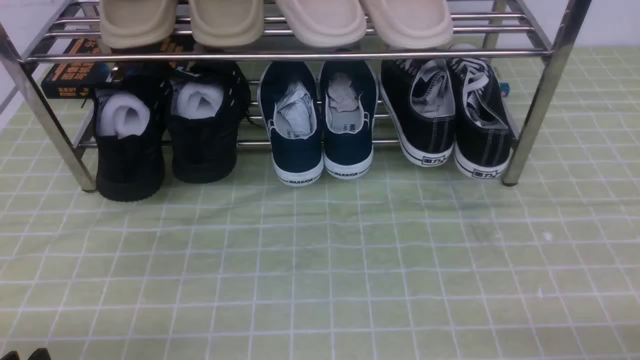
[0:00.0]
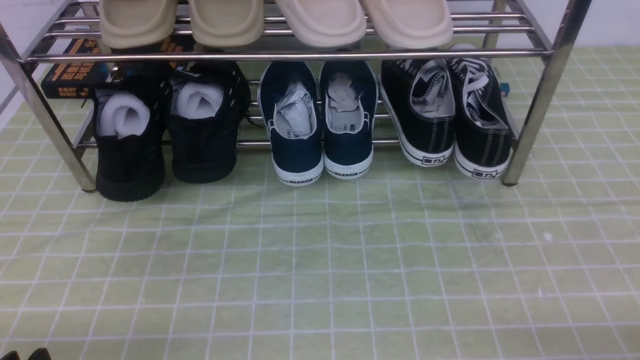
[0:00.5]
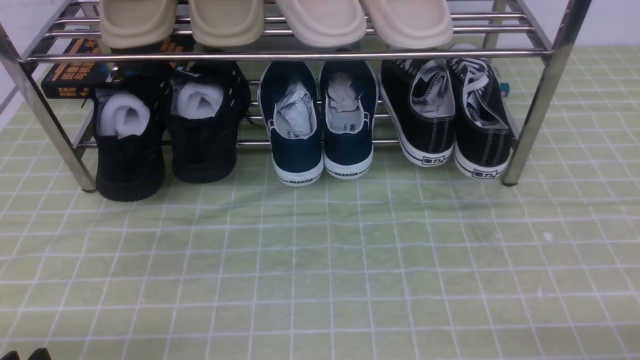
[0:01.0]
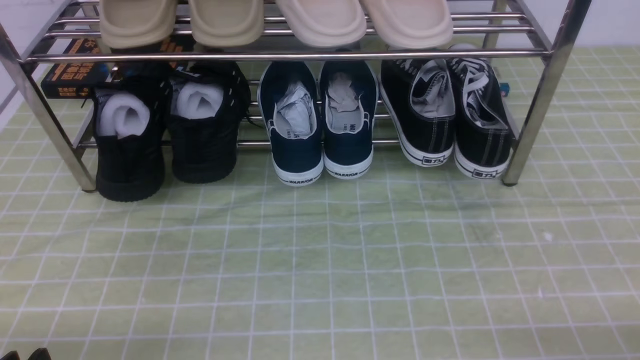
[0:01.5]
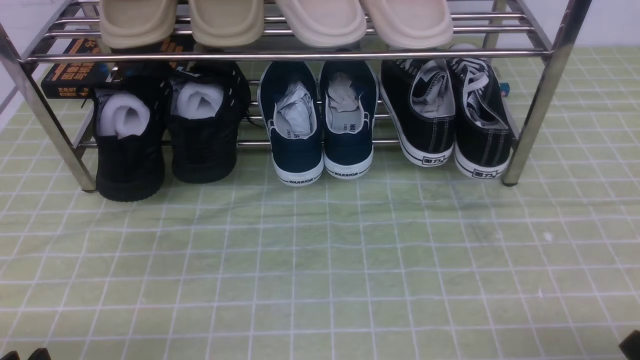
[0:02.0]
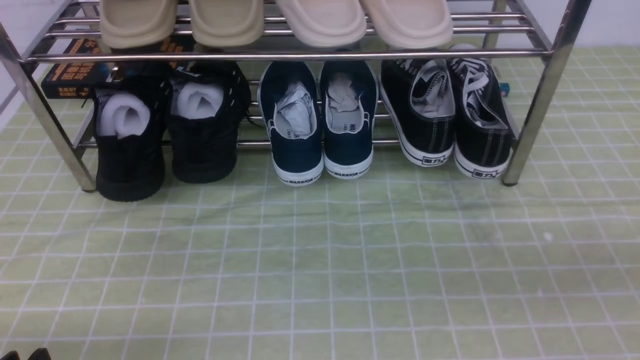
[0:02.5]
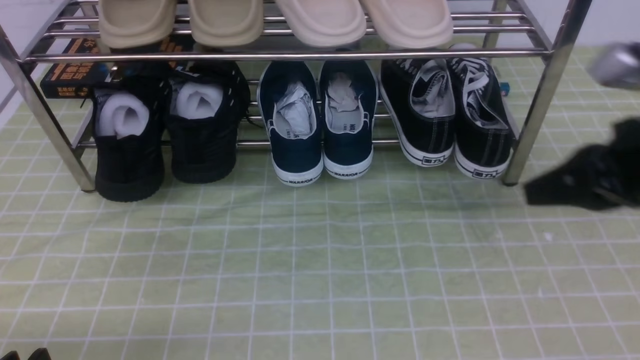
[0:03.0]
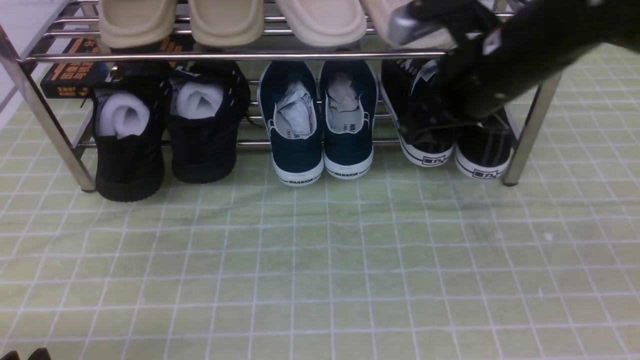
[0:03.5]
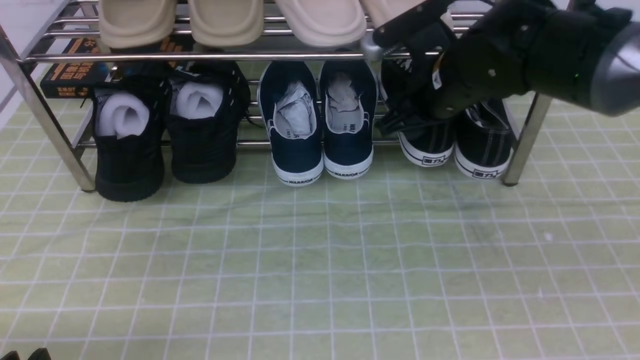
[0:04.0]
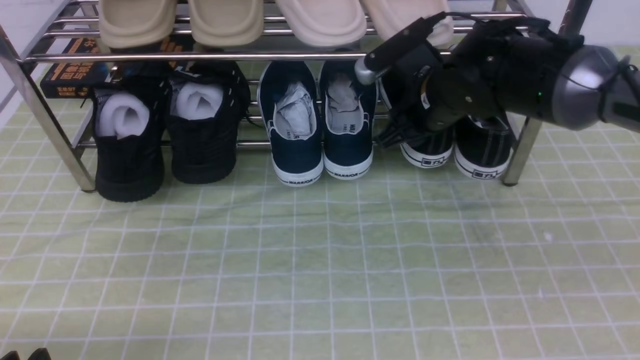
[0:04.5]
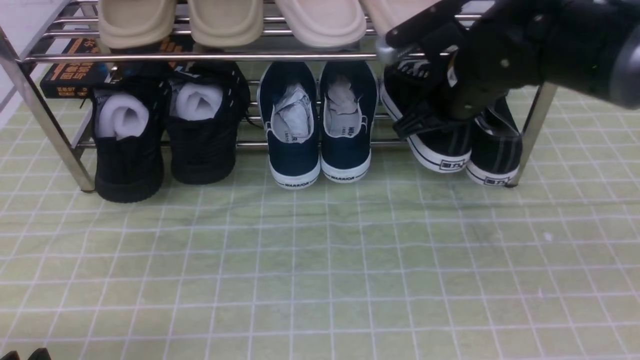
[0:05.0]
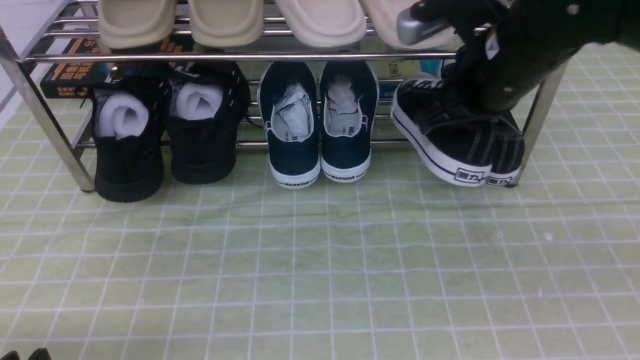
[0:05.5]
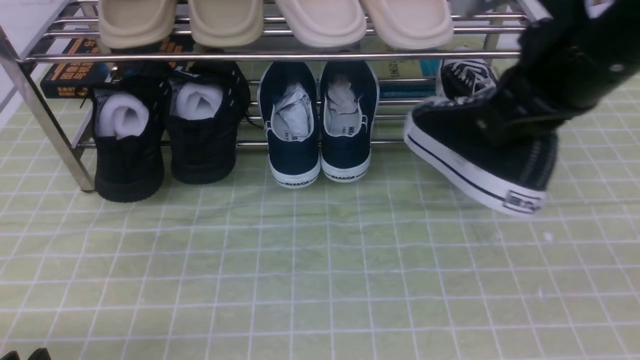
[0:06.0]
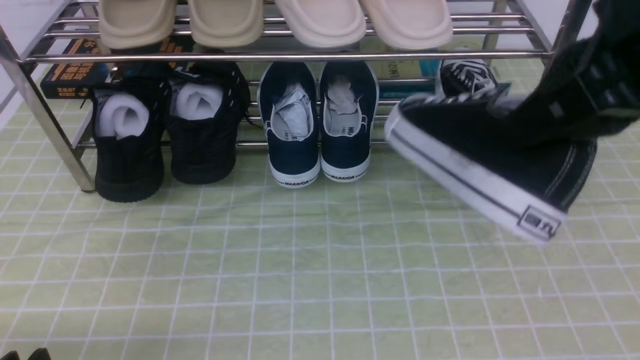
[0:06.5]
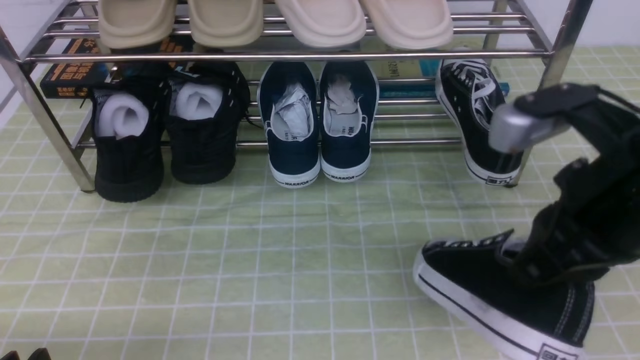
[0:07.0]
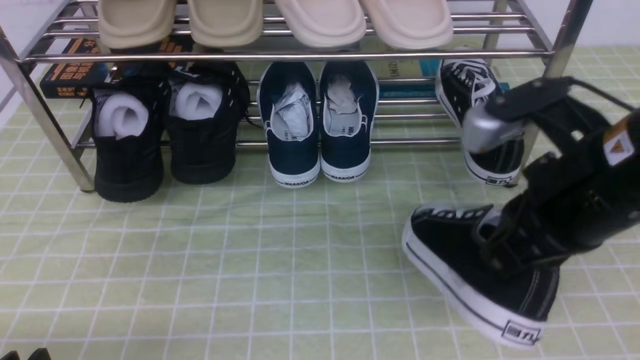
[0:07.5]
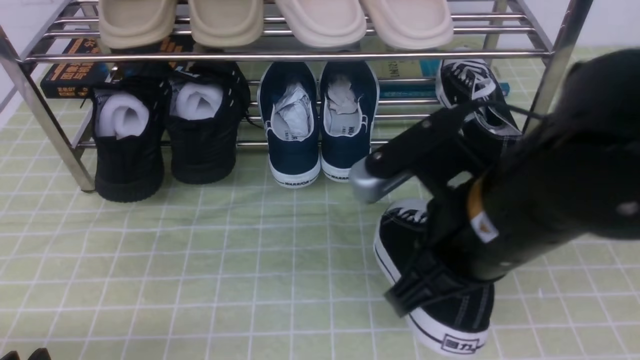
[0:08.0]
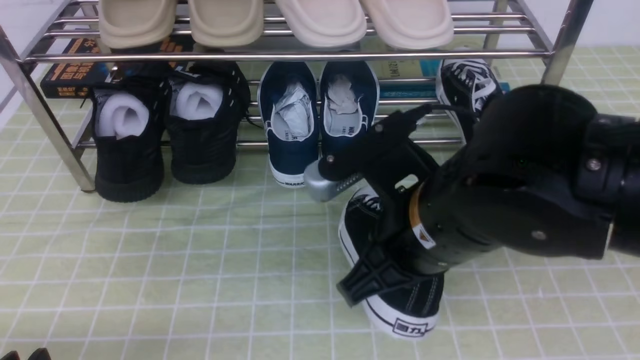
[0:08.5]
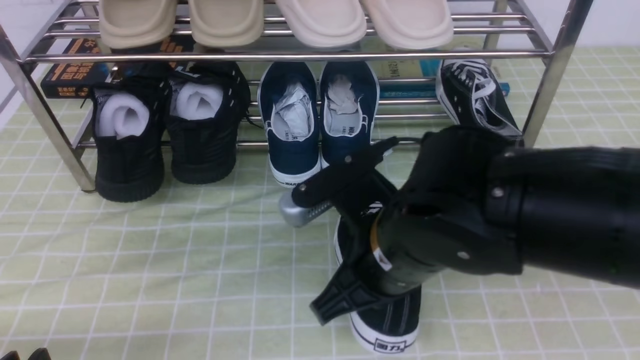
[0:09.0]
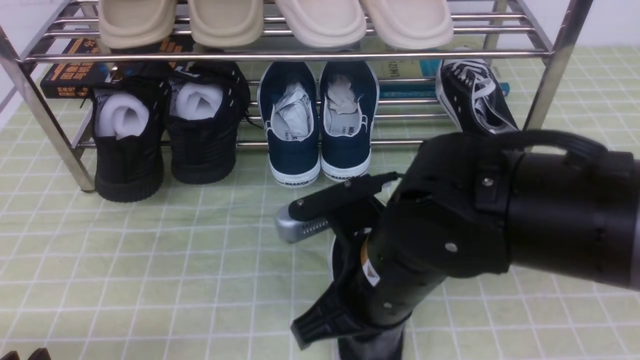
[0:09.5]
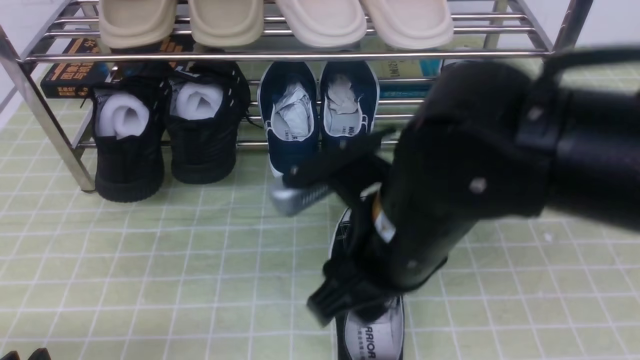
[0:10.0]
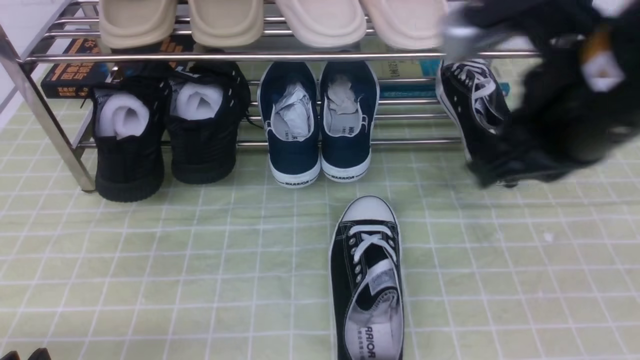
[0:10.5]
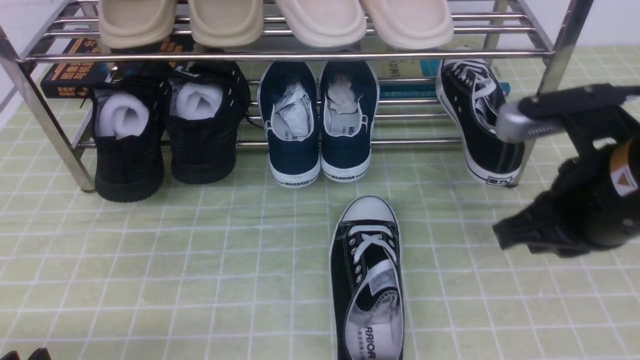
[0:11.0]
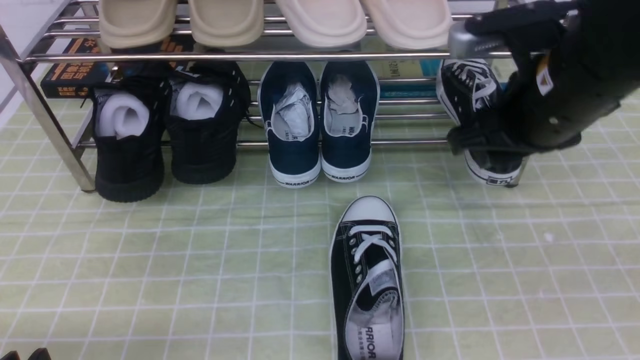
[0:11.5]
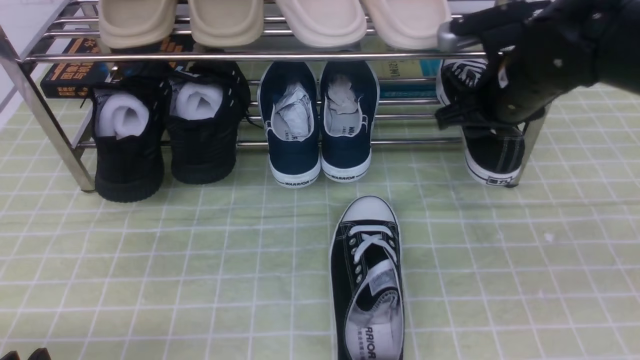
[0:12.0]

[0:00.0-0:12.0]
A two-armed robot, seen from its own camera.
Step, 0:00.0 to 0:04.5: use the right arm to clamp a shoe on the right side of the shoe rack.
Step, 0:05.0 to 0:09.5: use the right arm to take out the clamped shoe from the shoe rack and put it down.
0:02.0 to 0:04.0: The right gripper travels forward and to the left by about 40 cm, and opens up.
0:04.0 to 0:06.0: The right gripper heads backward and upward, covering about 20 cm, and closes its fingers.
0:06.0 to 0:08.0: The right gripper moves downward, to the left and backward, roughly 15 cm.
0:08.0 to 0:10.0: The right gripper opens.
0:10.0 to 0:12.0: The right gripper goes about 20 cm forward and to the right, and closes and opens again.

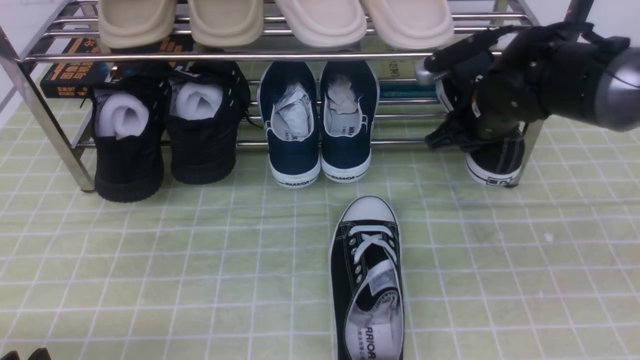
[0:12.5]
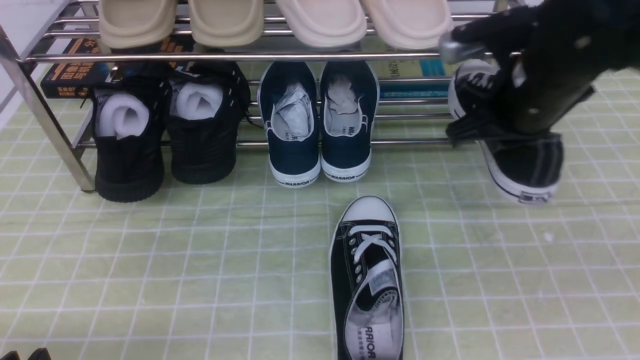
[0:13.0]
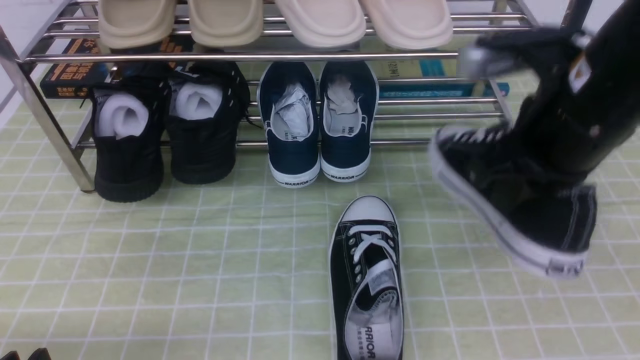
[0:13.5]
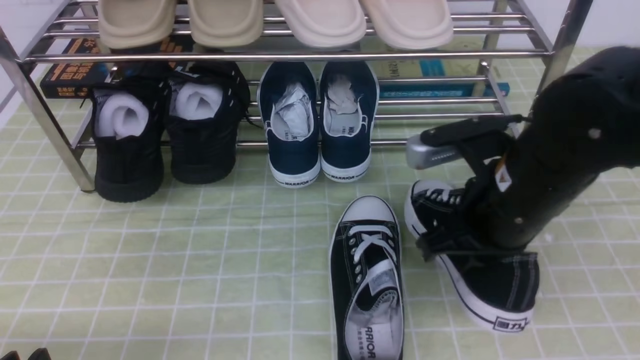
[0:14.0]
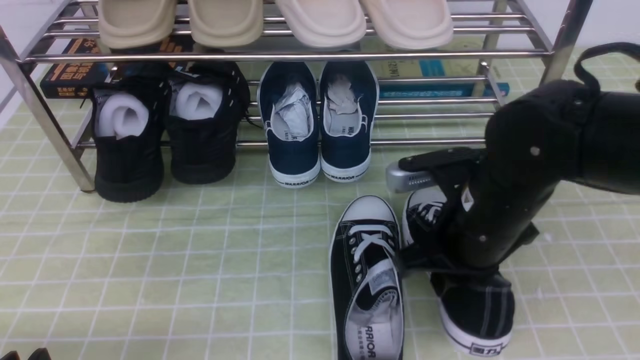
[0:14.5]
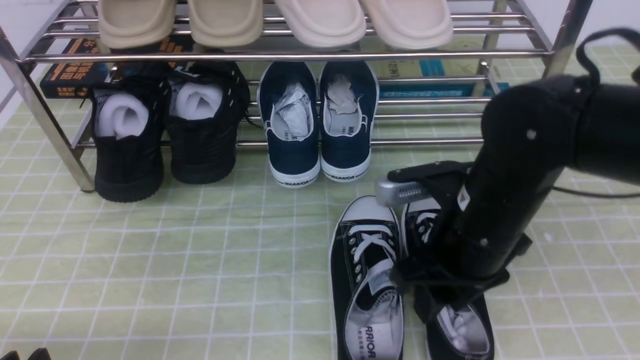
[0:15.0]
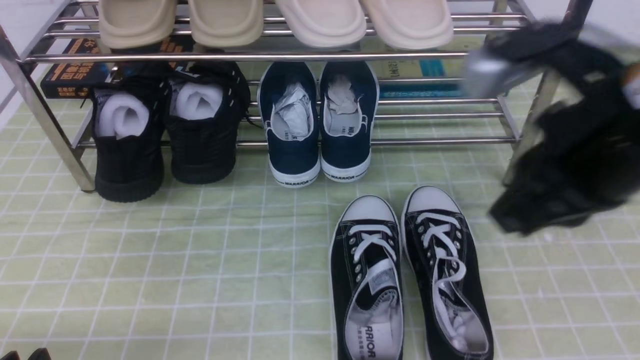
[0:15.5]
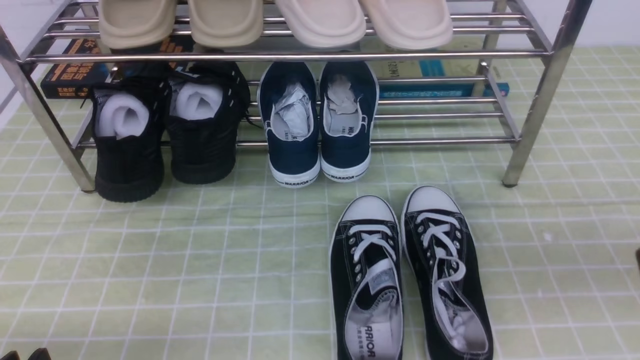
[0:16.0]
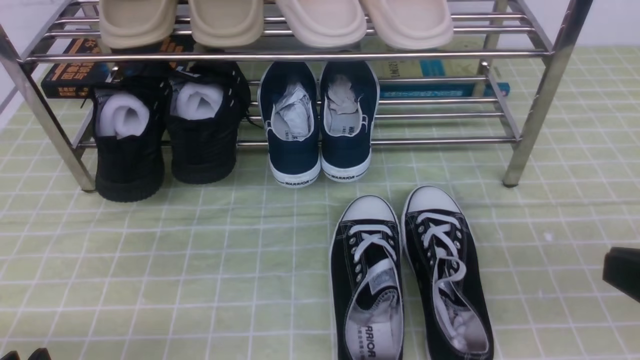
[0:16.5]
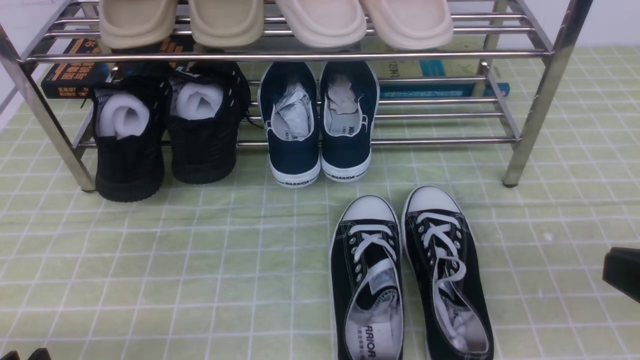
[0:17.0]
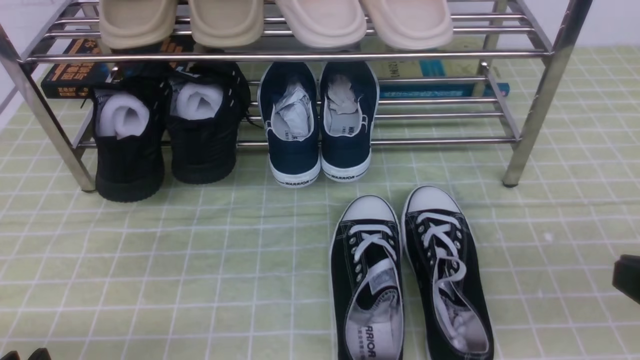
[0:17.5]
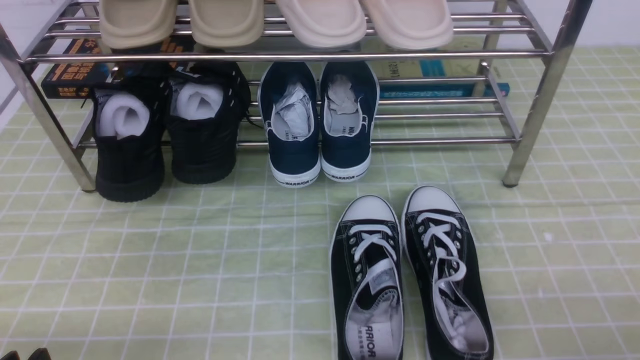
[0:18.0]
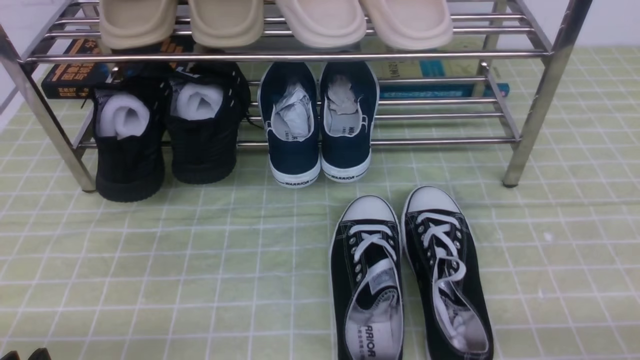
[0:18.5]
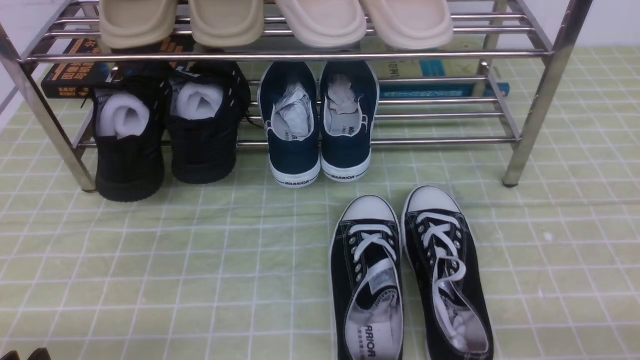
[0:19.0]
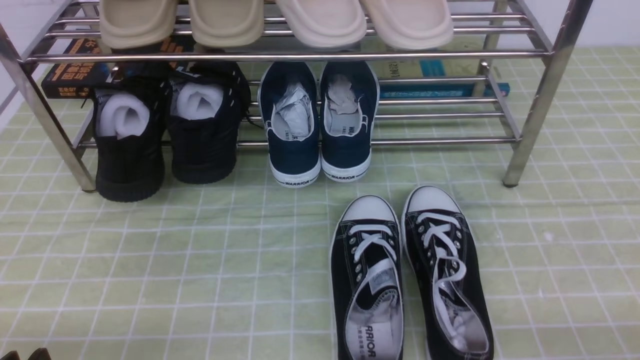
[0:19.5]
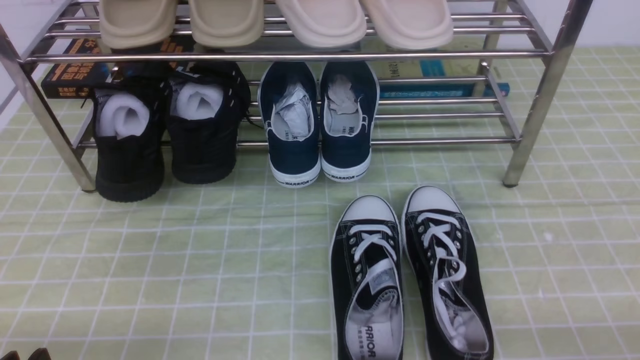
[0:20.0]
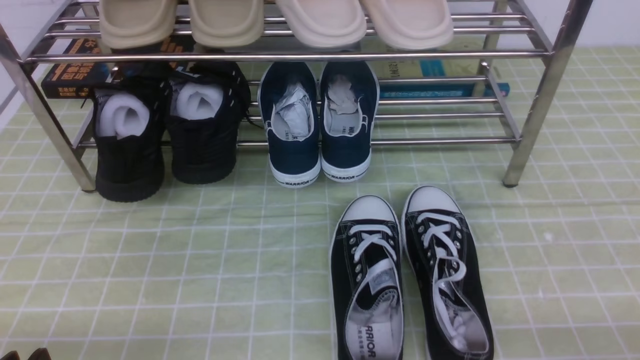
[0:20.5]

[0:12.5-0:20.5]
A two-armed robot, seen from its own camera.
Step, 0:13.0 to 0:16.0: use the right arm to take out the clamped shoe from the shoe rack and put it down.
0:12.5 to 0:14.5: The right gripper heads backward, covering some 15 cm.
0:14.5 to 0:16.5: The right gripper goes about 25 cm backward, to the right and upward, and opens, then closes once more.
0:16.5 to 0:18.5: The right gripper moves downward and to the right, some 15 cm.
0:18.5 to 0:20.5: The two grippers keep their place.
